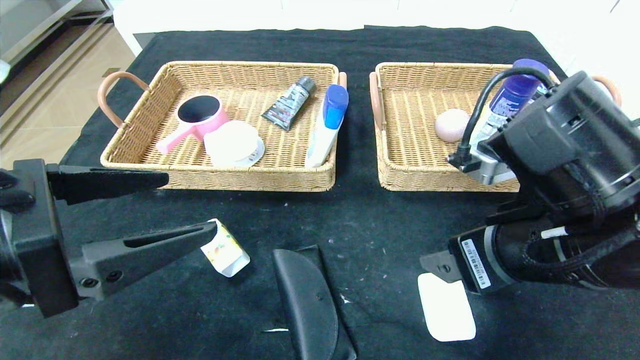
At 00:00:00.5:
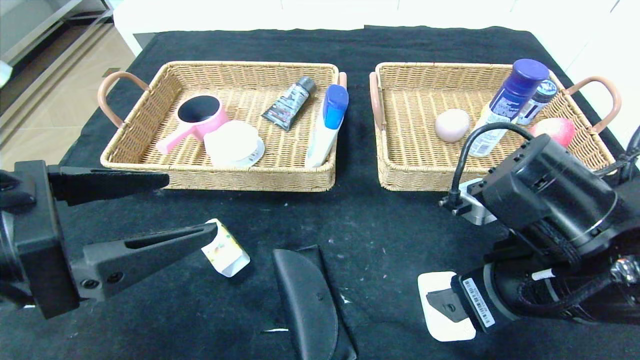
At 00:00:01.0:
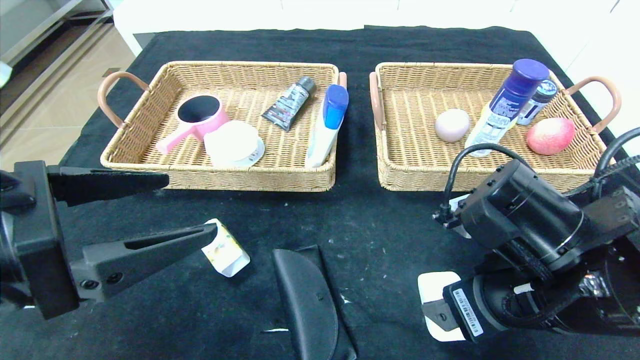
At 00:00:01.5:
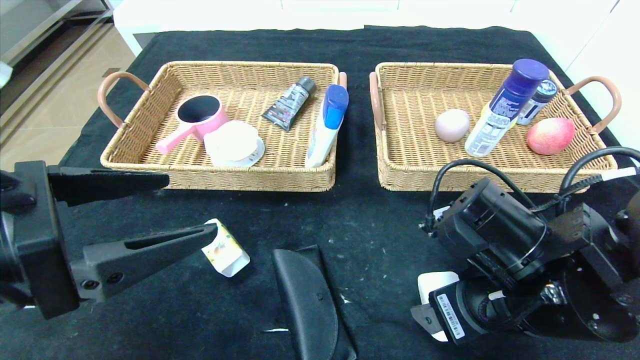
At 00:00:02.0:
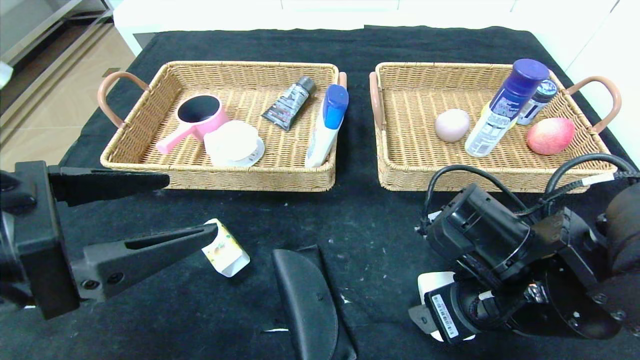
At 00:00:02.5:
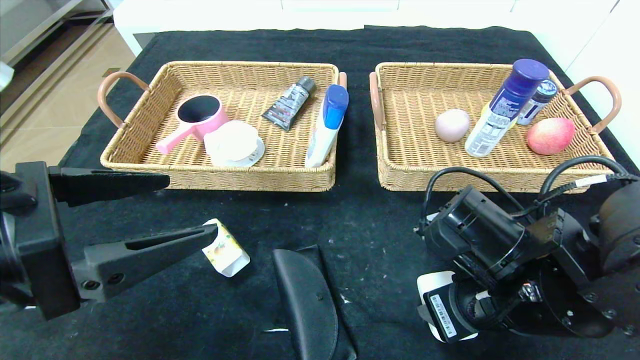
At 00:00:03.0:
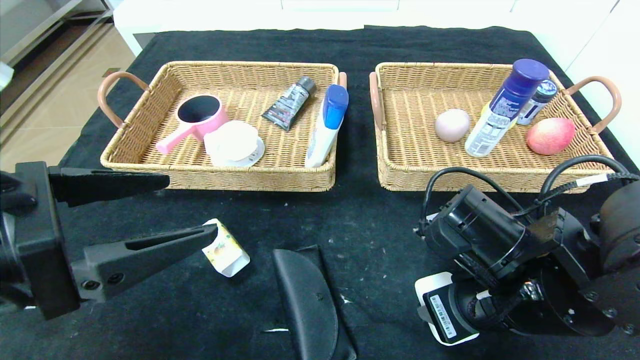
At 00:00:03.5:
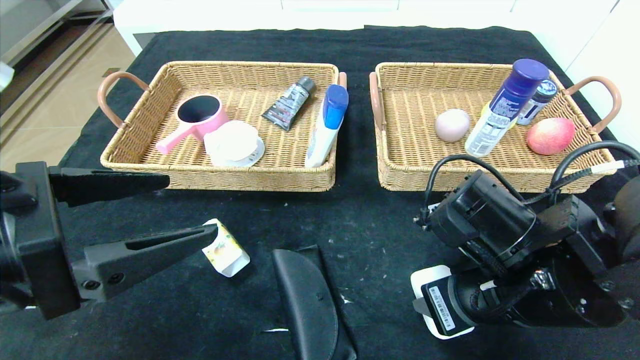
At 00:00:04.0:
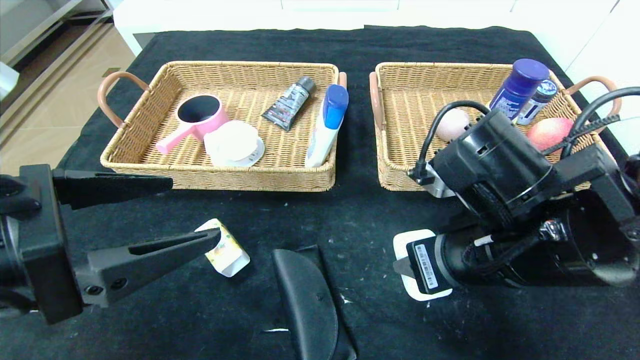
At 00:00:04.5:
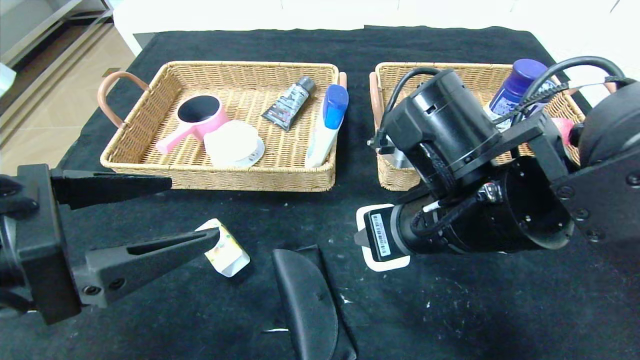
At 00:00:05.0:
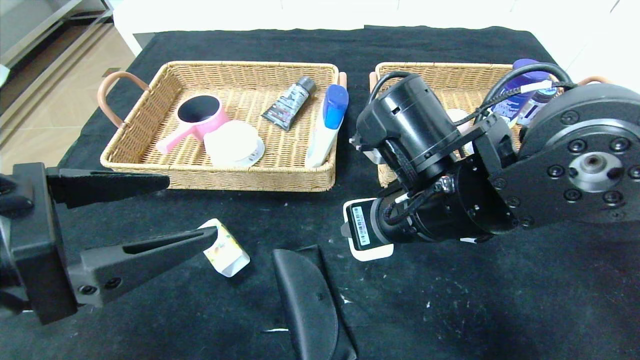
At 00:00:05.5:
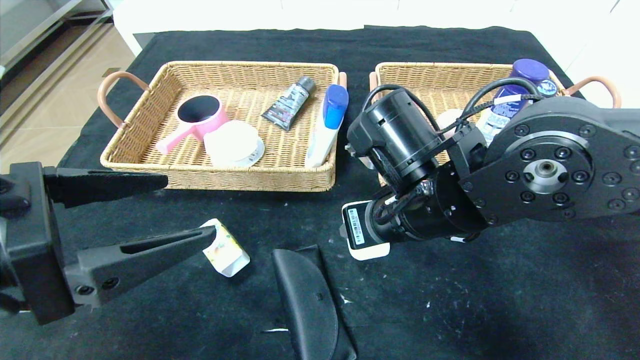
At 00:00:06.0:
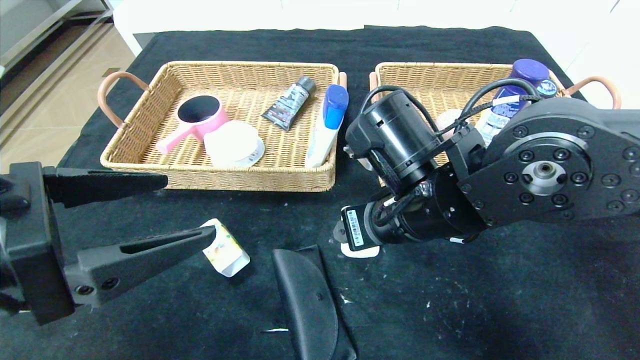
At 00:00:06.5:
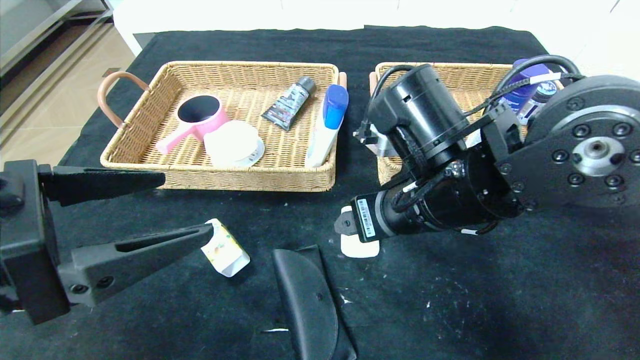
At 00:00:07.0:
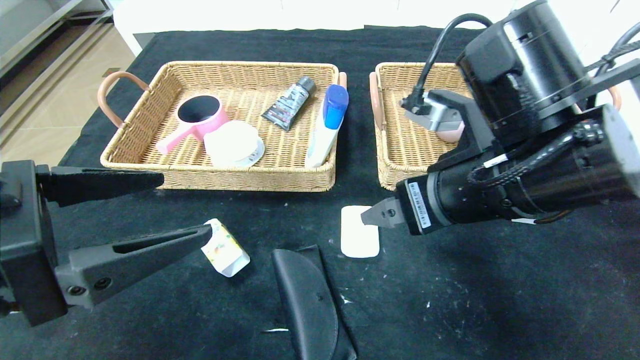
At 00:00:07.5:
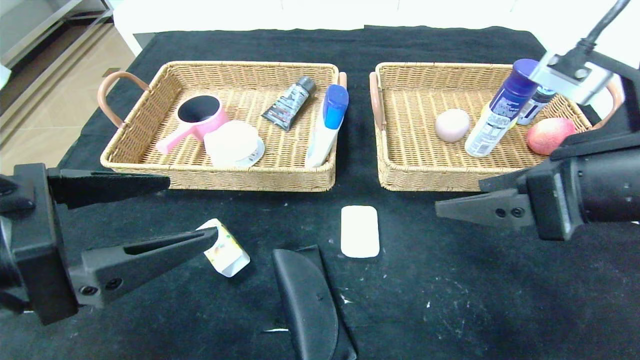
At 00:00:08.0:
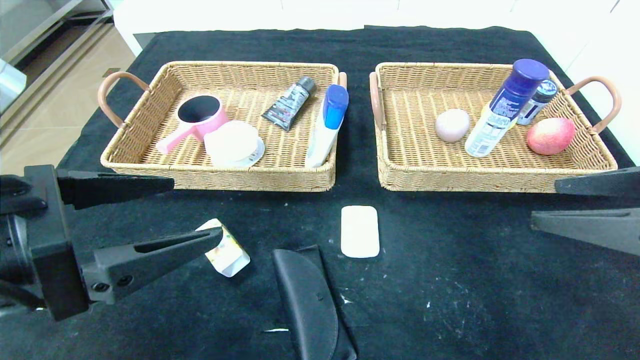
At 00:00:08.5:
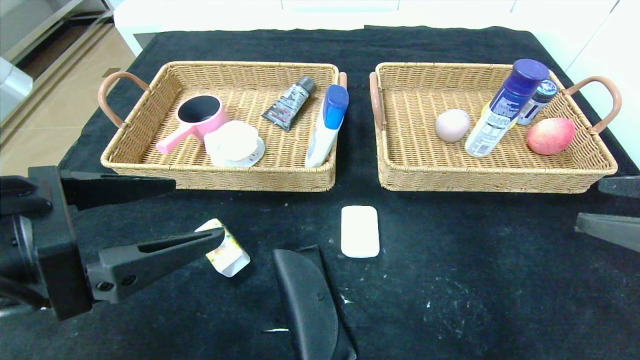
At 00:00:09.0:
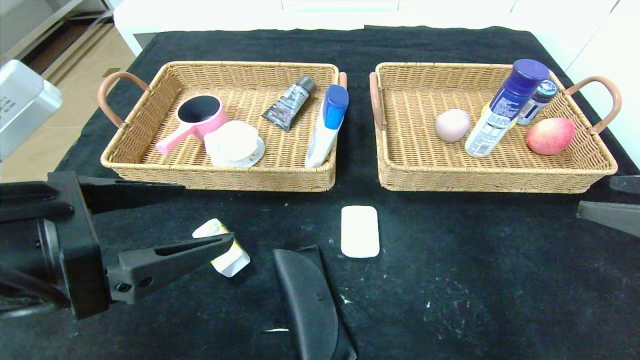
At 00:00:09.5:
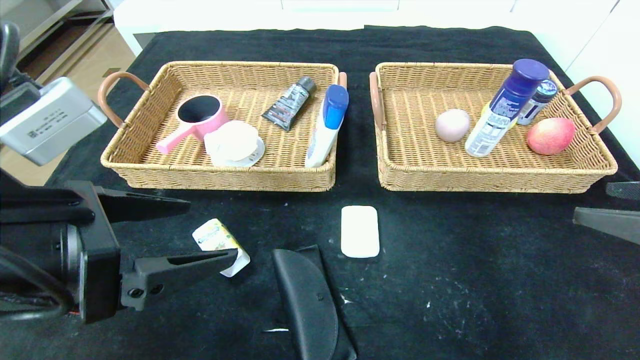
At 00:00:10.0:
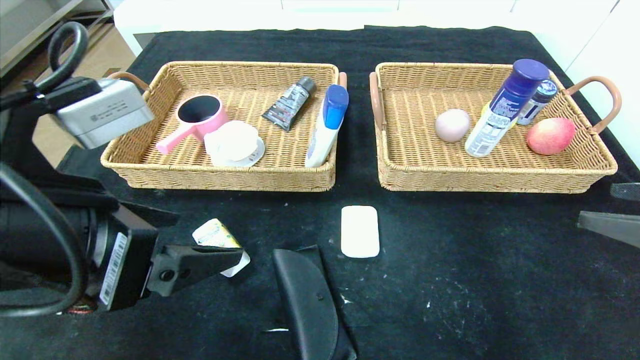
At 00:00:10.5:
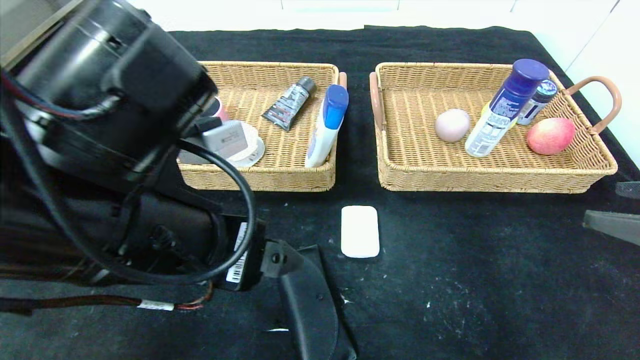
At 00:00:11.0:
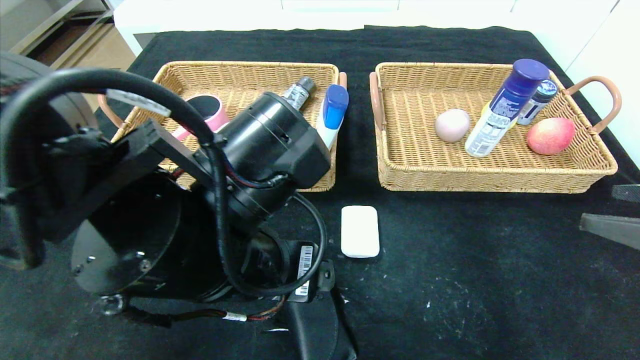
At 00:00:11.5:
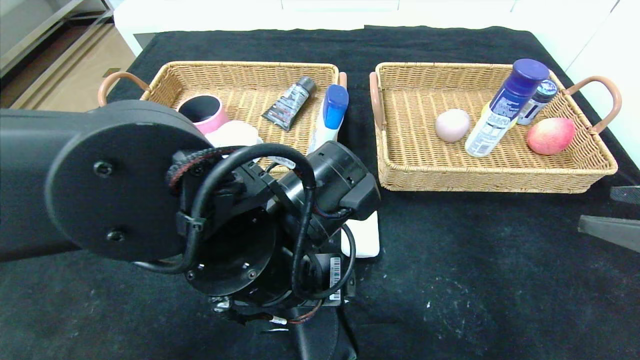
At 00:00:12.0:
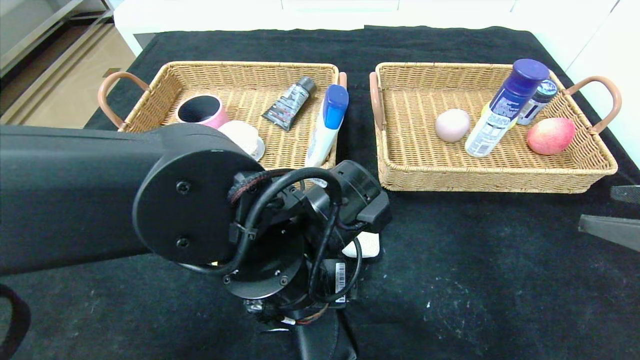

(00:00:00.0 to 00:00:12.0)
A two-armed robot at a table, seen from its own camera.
Step, 00:00:00.0 - 00:00:06.0: Place the white eraser in the center of the table.
00:00:00.0 - 00:00:02.0: The right gripper moves downward, some 5 cm.
00:00:02.0 - 00:00:04.0: The right gripper shifts about 5 cm upward, and closes.
00:00:04.0 - 00:00:06.0: The right gripper is displaced to the left by some 5 cm, and opens its fingers.
00:00:06.0 - 00:00:08.0: The right gripper is displaced to the right and backward by some 25 cm.
00:00:10.0 - 00:00:12.0: The left gripper travels to the right, downward and forward by some 20 cm.

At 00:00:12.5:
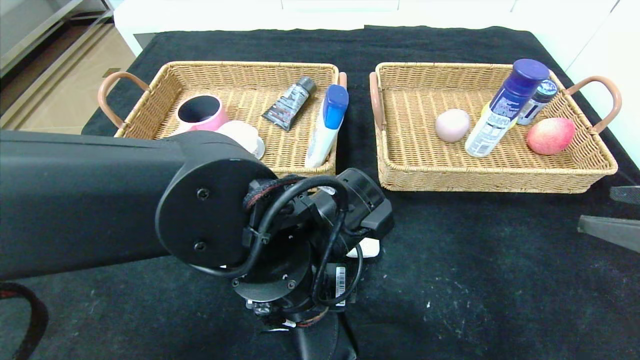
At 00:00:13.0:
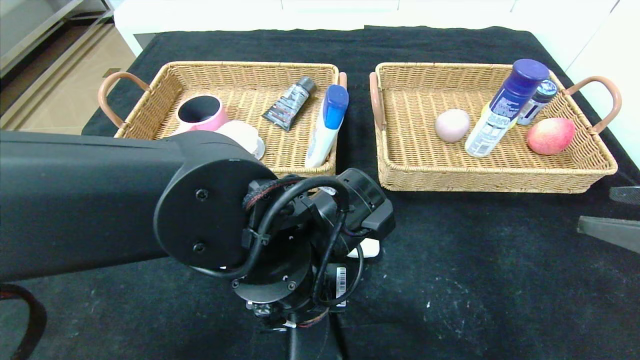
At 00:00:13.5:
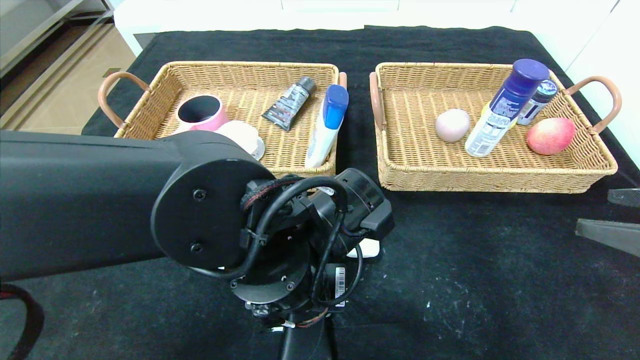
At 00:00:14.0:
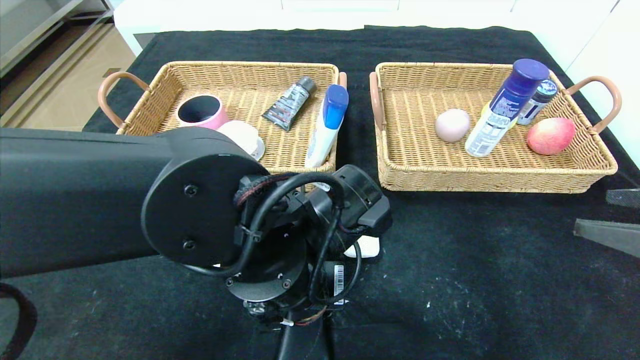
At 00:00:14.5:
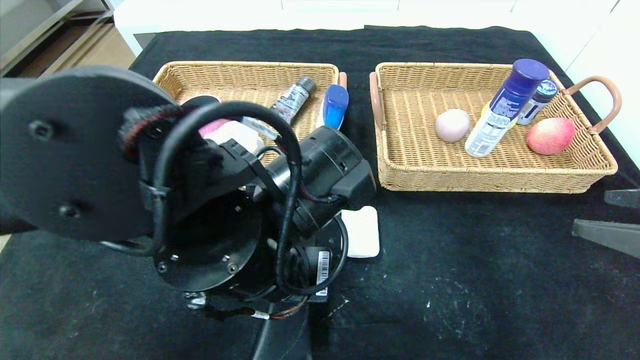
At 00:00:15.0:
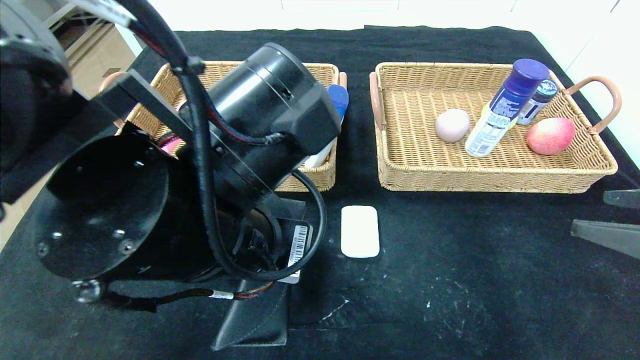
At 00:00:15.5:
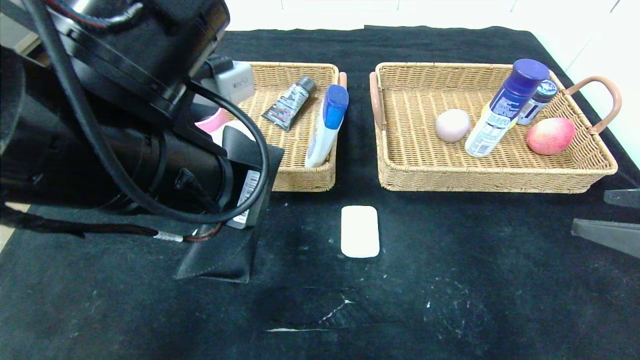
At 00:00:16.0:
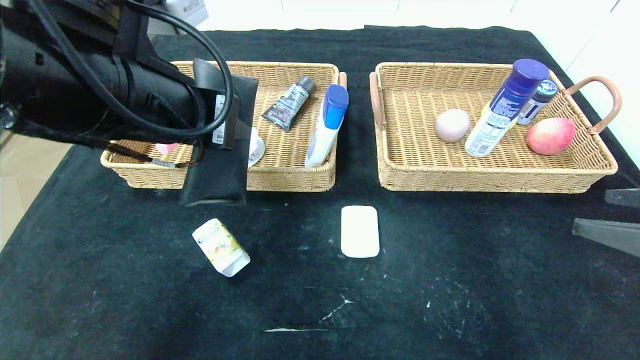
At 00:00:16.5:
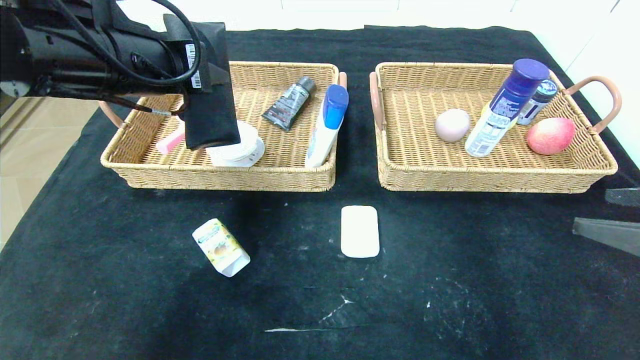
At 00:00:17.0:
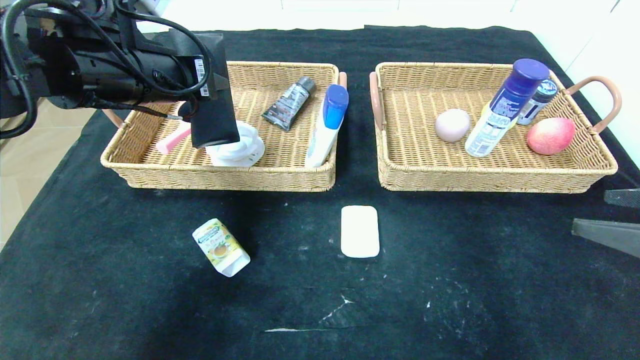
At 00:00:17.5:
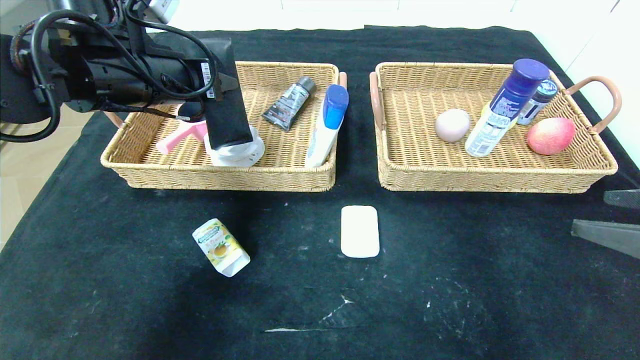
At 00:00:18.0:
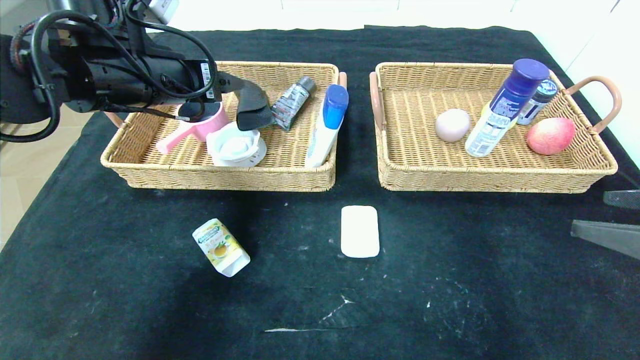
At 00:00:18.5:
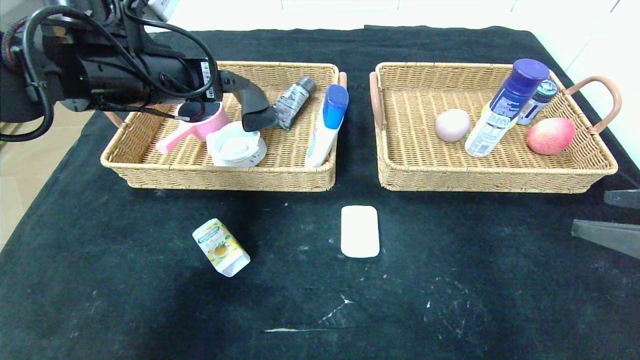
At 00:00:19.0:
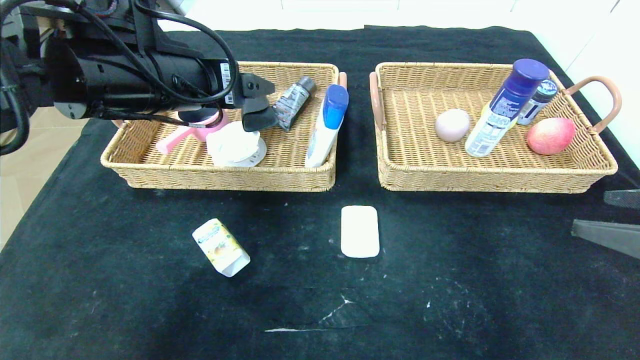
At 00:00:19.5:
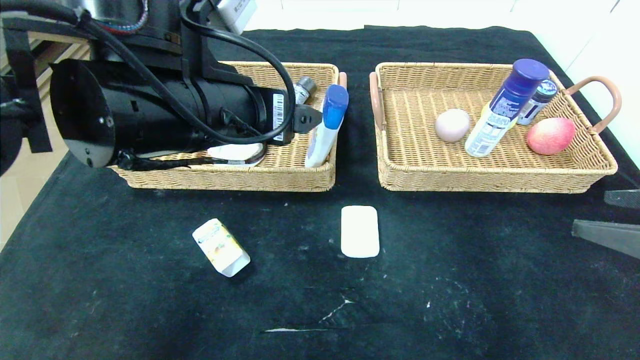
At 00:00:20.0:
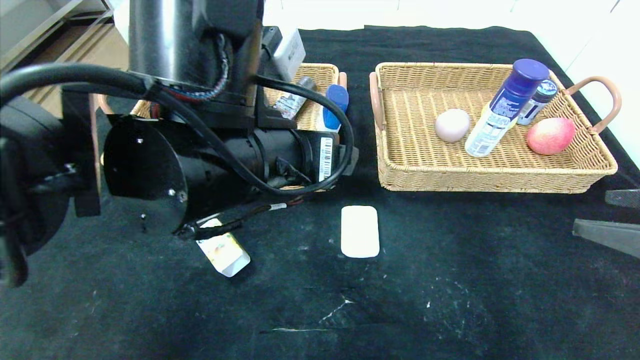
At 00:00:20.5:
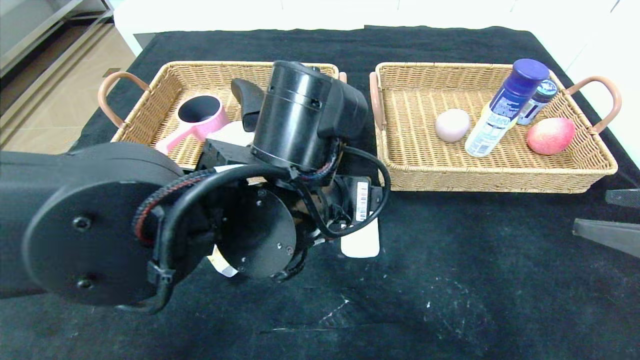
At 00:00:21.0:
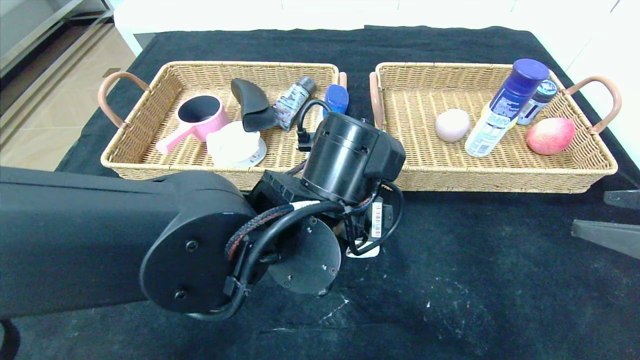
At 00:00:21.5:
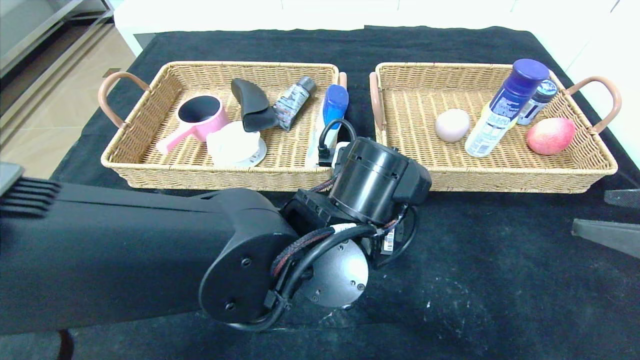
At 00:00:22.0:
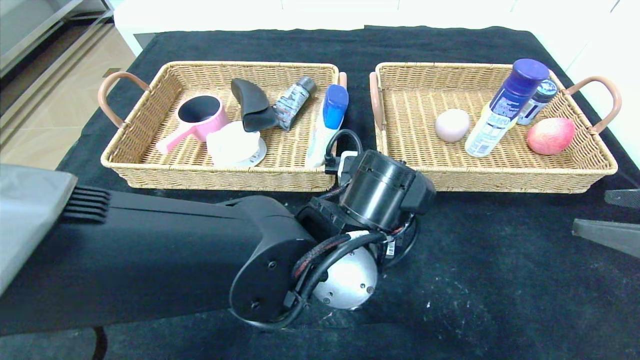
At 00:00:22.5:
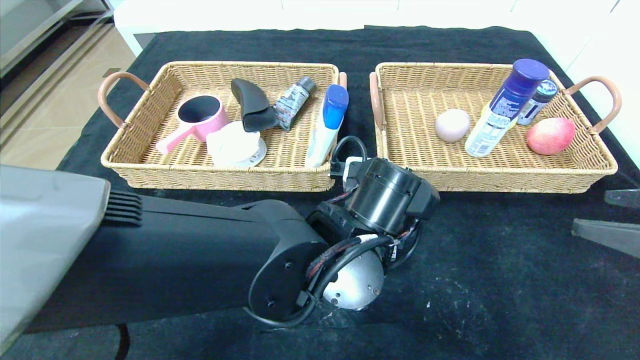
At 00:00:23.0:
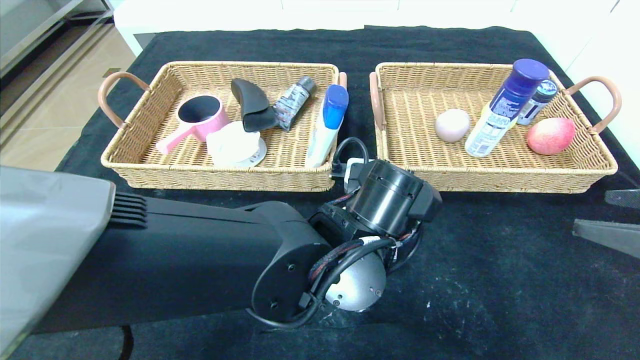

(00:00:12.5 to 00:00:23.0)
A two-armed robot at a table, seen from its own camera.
Step, 00:00:12.5 - 00:00:18.0: Grasp the glasses case and put it in the left basket.
00:00:12.5 - 00:00:14.5: The left gripper shifts by about 5 cm, and closes its fingers.
00:00:14.5 - 00:00:16.5: The left gripper shifts some 20 cm to the left, upward and forward.
00:00:16.5 - 00:00:19.0: The left gripper opens.
00:00:19.0 - 00:00:21.0: The left gripper travels to the right and downward by roughly 20 cm.
00:00:21.0 - 00:00:23.0: The left gripper moves approximately 5 cm, and closes its fingers.
